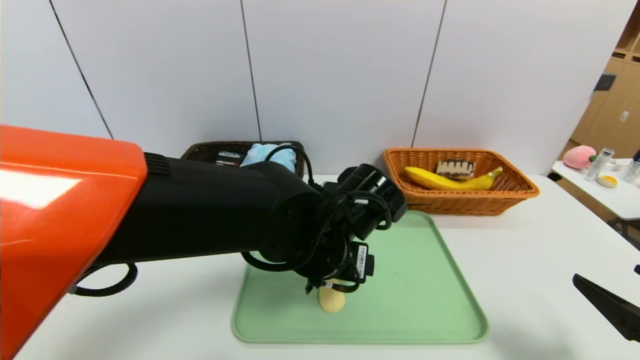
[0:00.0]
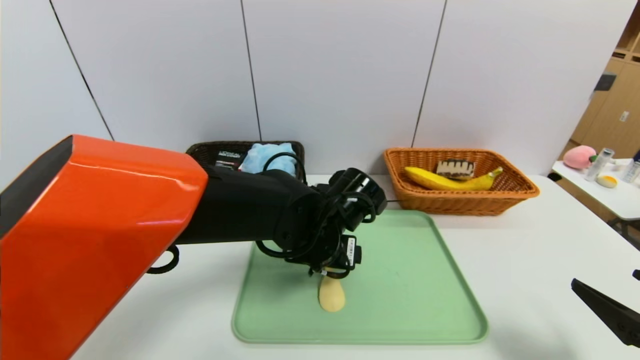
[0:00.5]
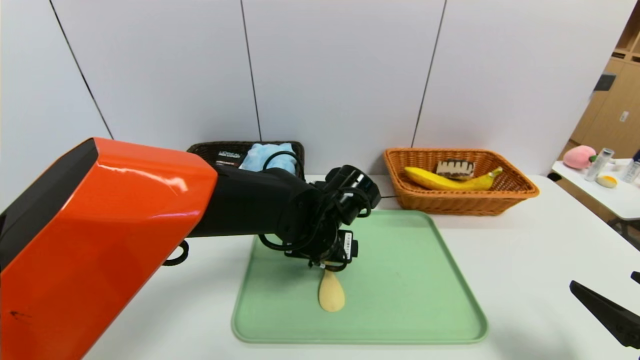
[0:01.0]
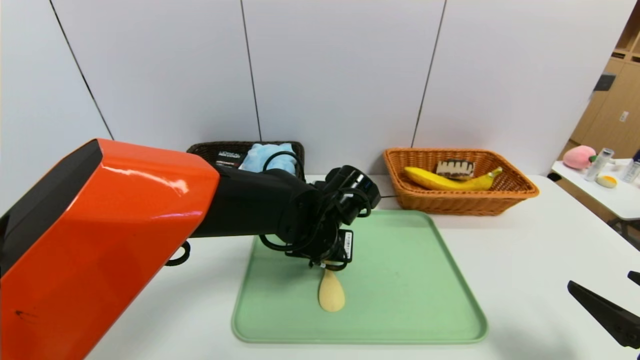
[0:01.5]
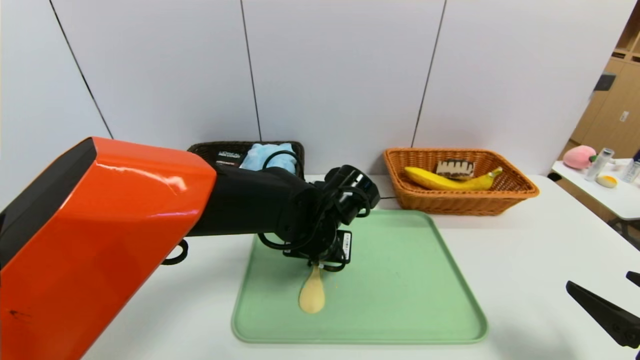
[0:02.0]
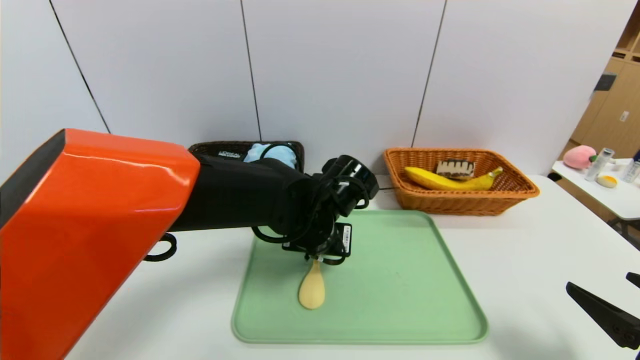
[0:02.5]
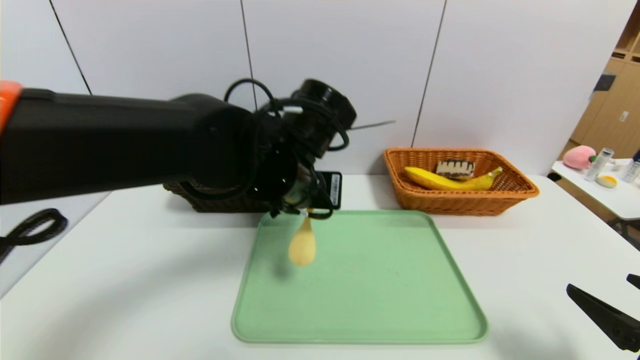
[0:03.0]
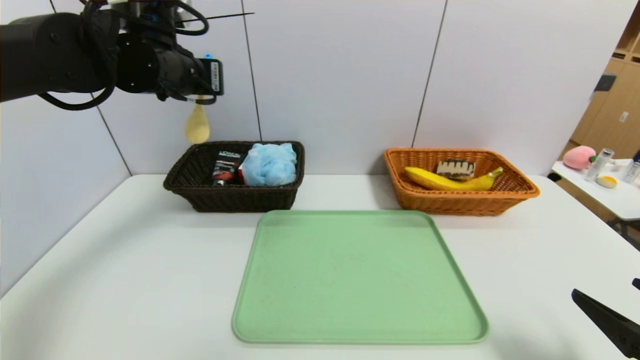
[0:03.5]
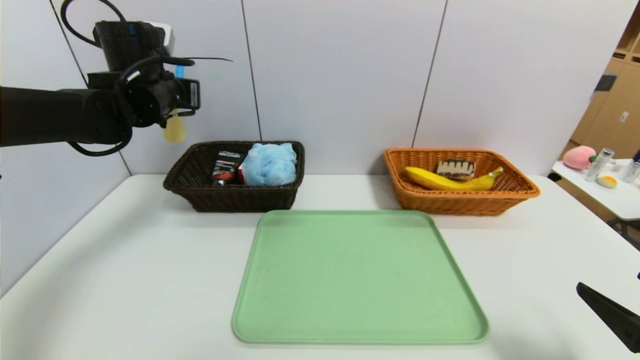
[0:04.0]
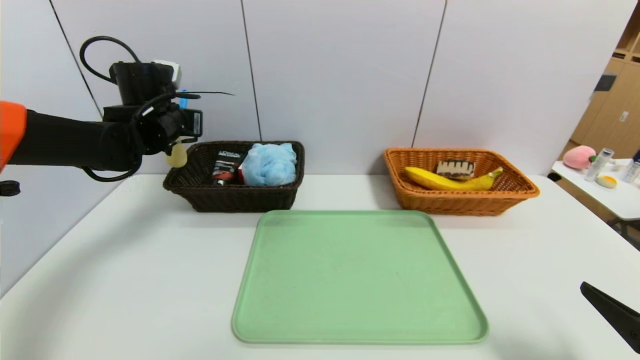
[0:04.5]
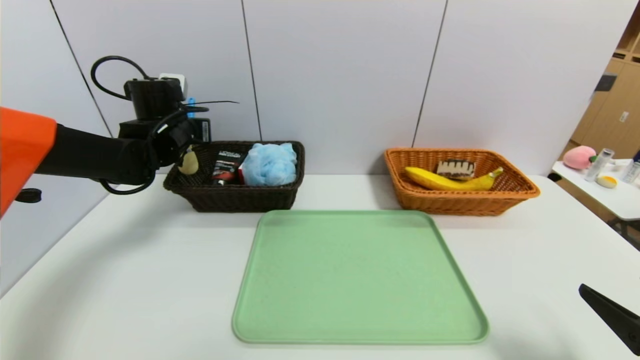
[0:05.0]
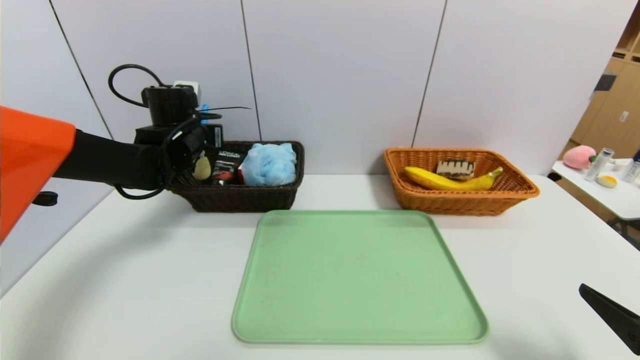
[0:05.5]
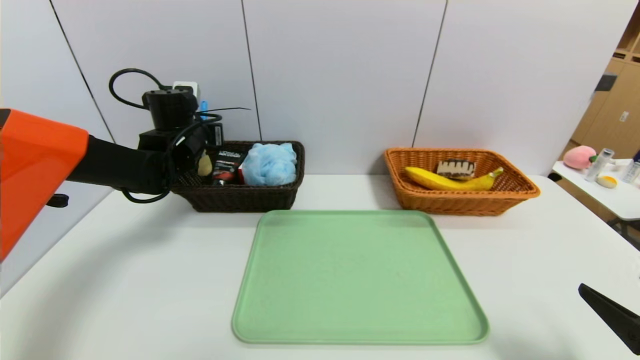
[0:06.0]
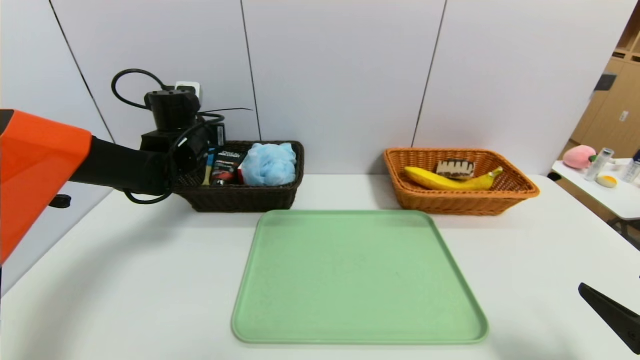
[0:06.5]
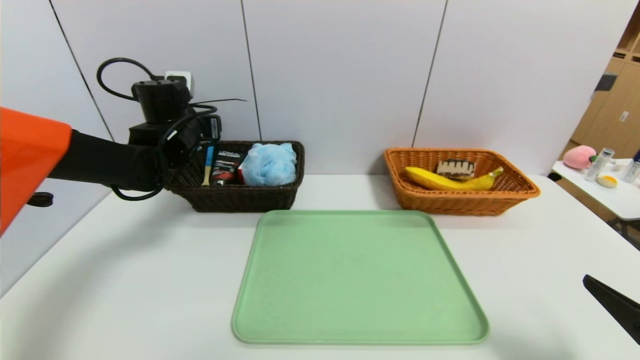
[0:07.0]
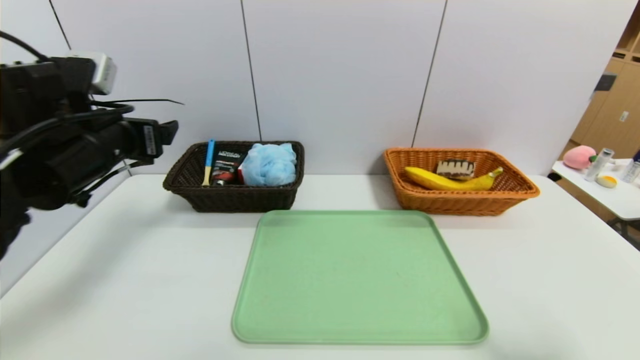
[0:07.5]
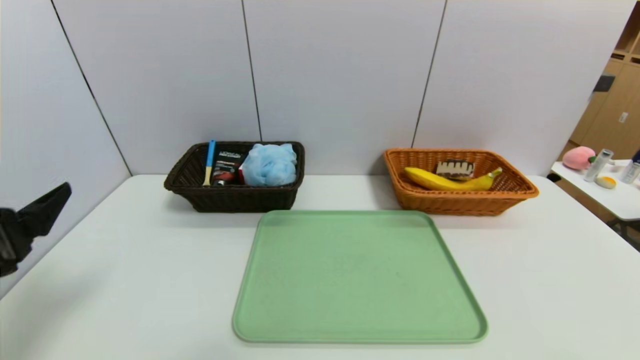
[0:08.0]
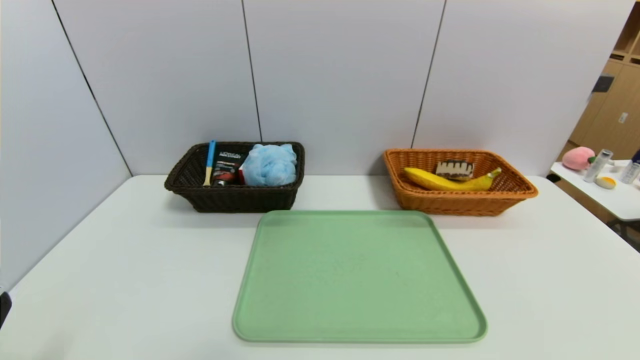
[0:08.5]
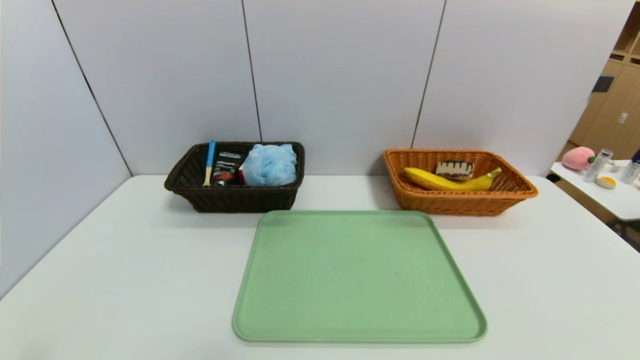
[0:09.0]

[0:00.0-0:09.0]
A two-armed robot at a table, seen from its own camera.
Task of the whole recording: place the food in the right basket with the right gripper, and place the non food items in the left basket with the left gripper.
Step, 0:00.0 to 0:06.5: Grasp the spoon and put it in the left basket.
0:00.0 to 0:02.0: The left gripper shifts about 5 cm forward, and closes its fingers.
0:02.0 to 0:04.5: The left gripper shifts some 30 cm to the left, forward and upward.
0:04.5 to 0:07.0: The left gripper opens its fingers.
0:07.0 to 0:09.0: The left gripper shifts roughly 40 cm backward. Meanwhile the right gripper is displaced backward by some 15 cm.
